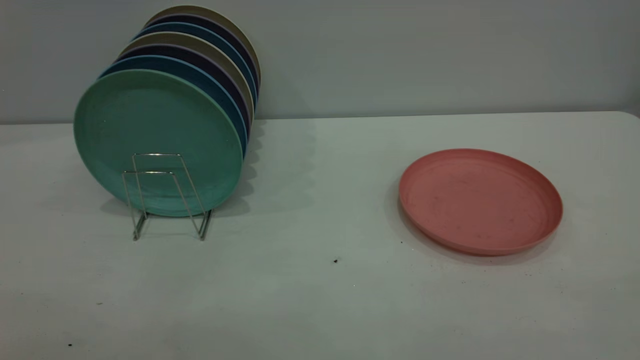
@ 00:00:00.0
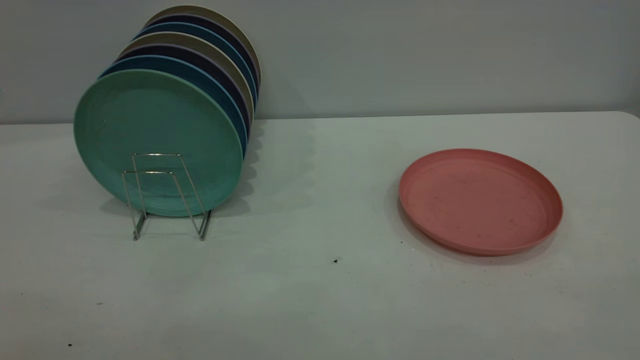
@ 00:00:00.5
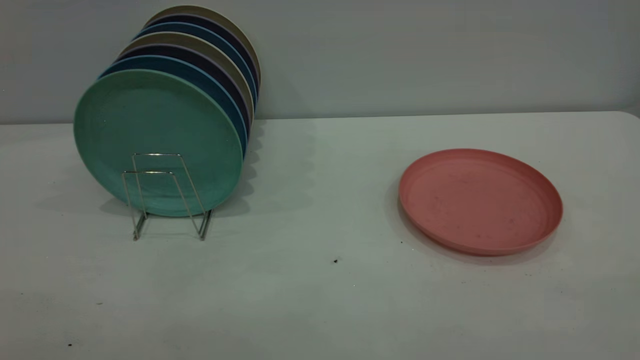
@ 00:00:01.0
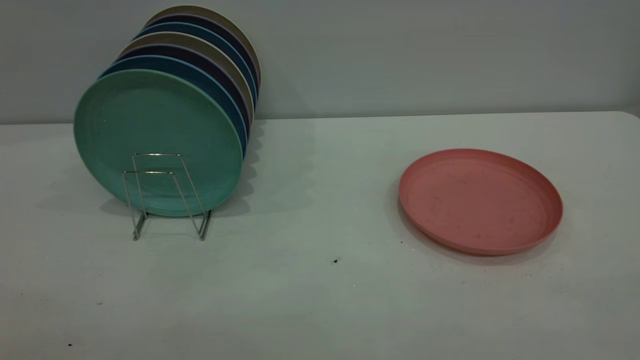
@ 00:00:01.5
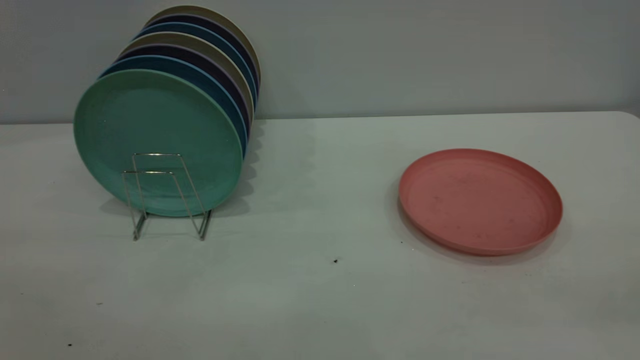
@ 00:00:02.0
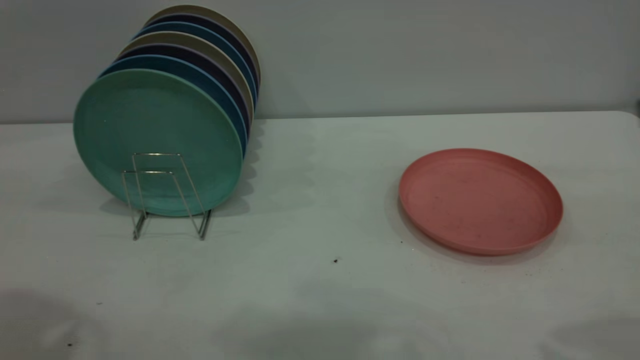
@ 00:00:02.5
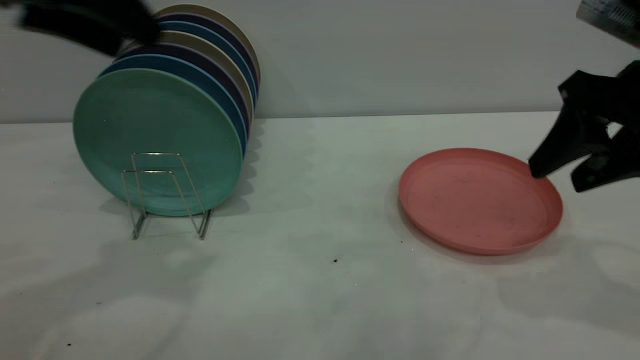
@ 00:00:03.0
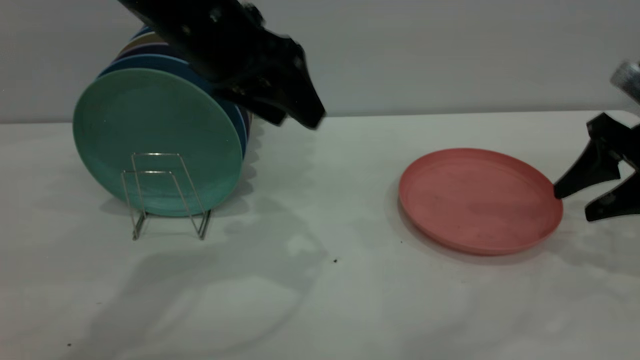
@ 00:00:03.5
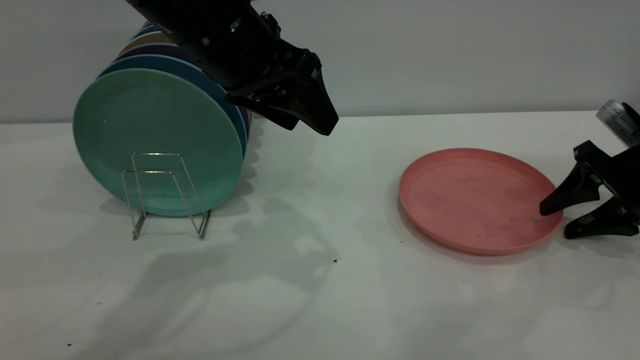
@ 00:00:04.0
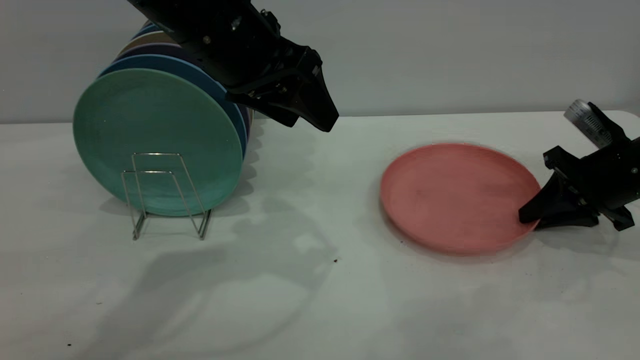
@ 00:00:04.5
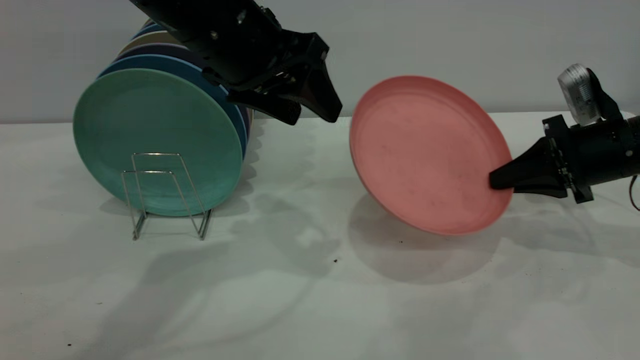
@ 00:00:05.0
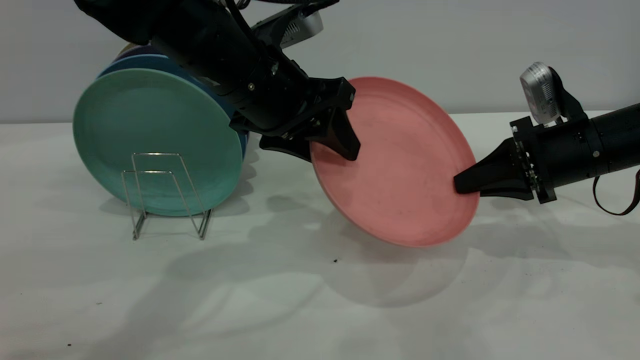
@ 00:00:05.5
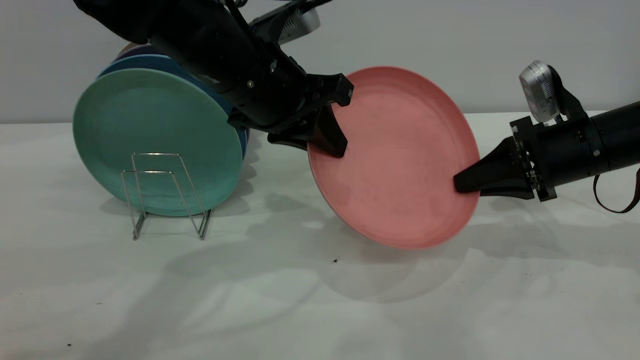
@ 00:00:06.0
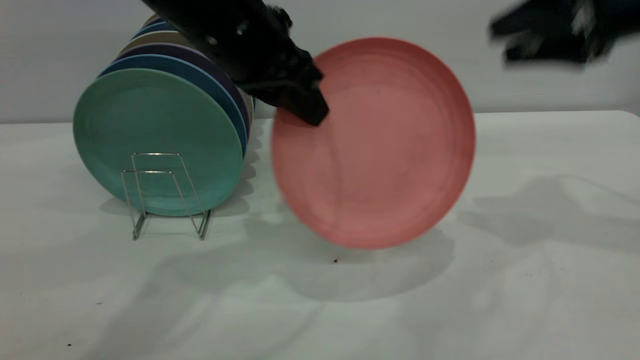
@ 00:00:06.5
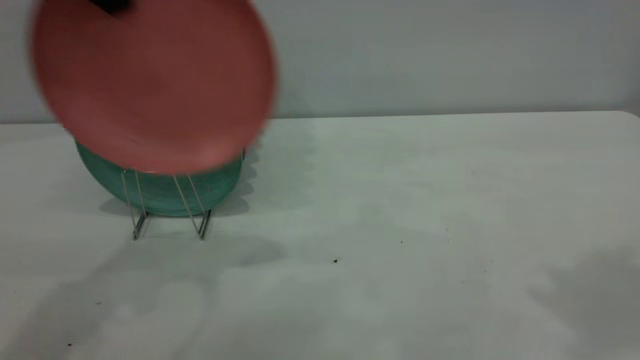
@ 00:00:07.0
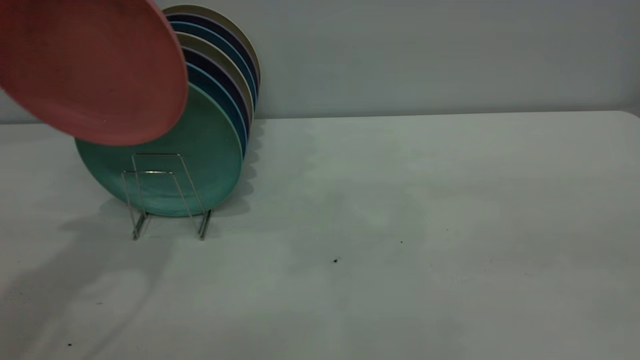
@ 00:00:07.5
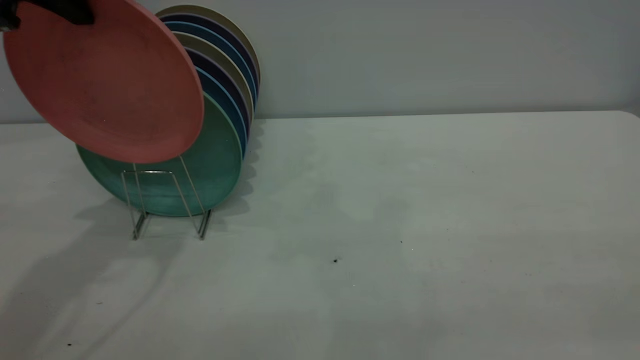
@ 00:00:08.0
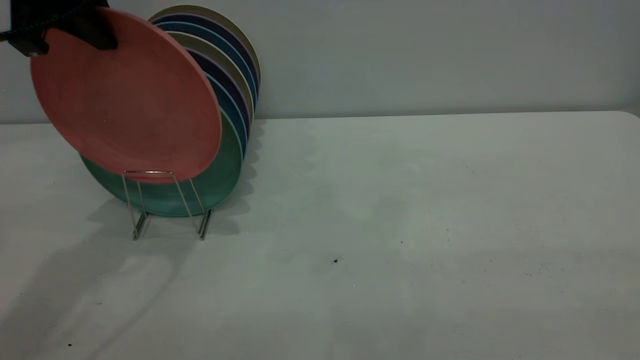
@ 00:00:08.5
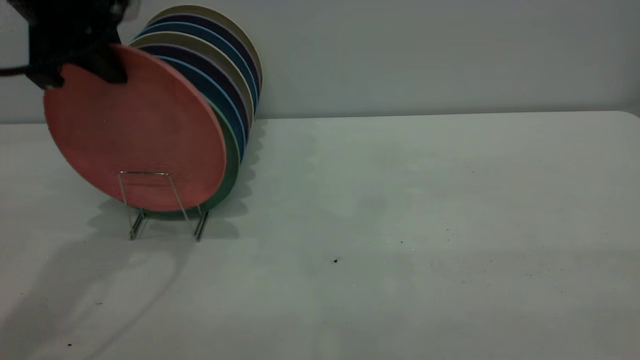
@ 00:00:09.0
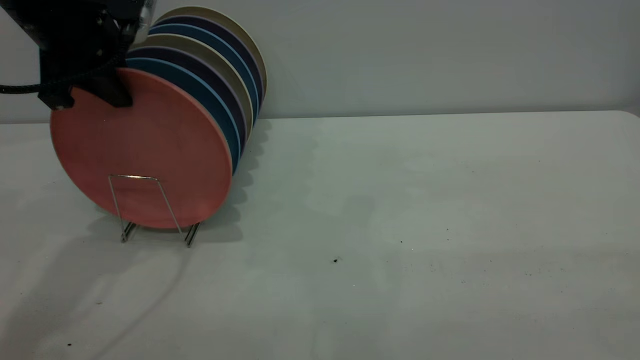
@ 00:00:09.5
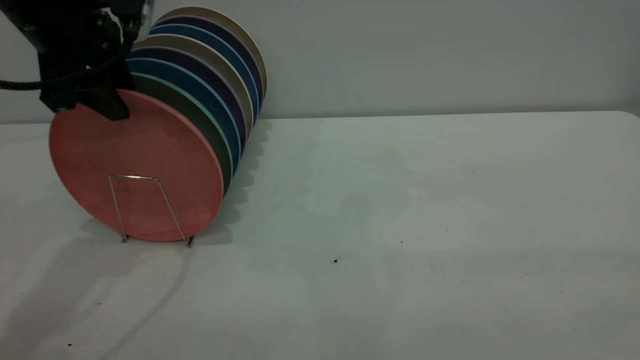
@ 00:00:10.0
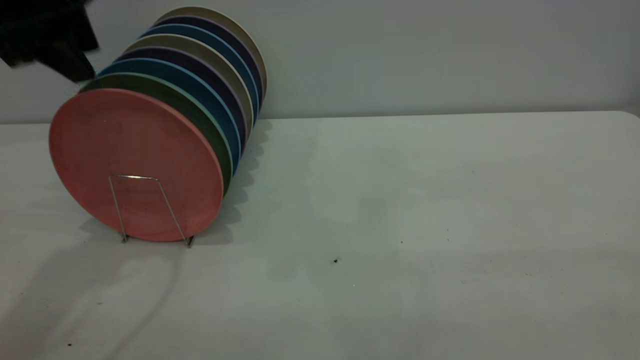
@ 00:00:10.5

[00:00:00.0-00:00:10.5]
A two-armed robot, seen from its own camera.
Task of the whole recording: the right gripper grasp the pink plate, the right gripper pass the pink plate to the left gripper, and the left gripper place the pink plate on the plate rack.
Step, 00:00:00.0 to 00:00:04.5: Pick up the plate with the right gripper.
Step, 00:00:05.0 to 00:00:06.0: Pass the plate from the right gripper to the left gripper.
Step, 00:00:06.5 to 00:00:10.5: Place the plate on the shelf.
00:00:02.0 to 00:00:04.0: The left gripper moves forward, to the right and downward, approximately 40 cm. The right gripper is displaced forward and downward by some 40 cm.
00:00:04.0 to 00:00:06.5: The left gripper closes up; the right gripper goes some 20 cm upward, and closes, then reopens.
00:00:06.5 to 00:00:08.5: The right gripper goes roughly 35 cm backward, and closes. The left gripper moves to the left, approximately 15 cm.
00:00:08.5 to 00:00:10.5: The left gripper opens up.

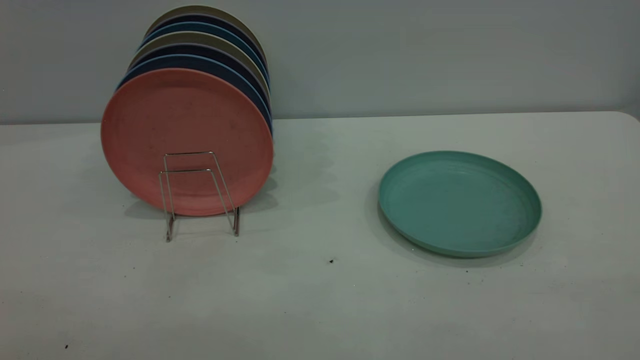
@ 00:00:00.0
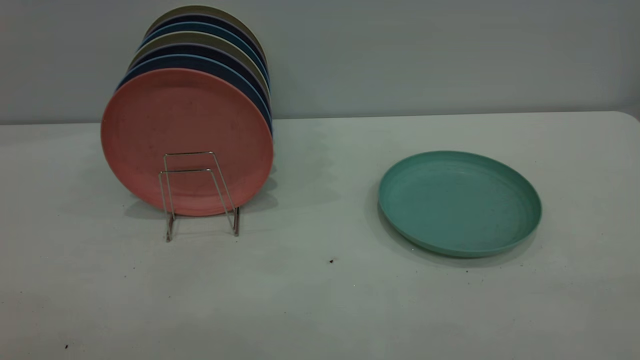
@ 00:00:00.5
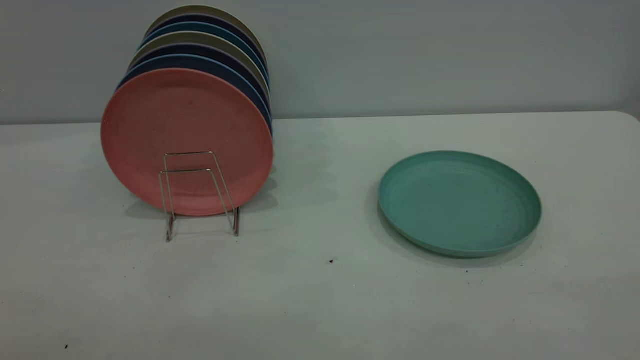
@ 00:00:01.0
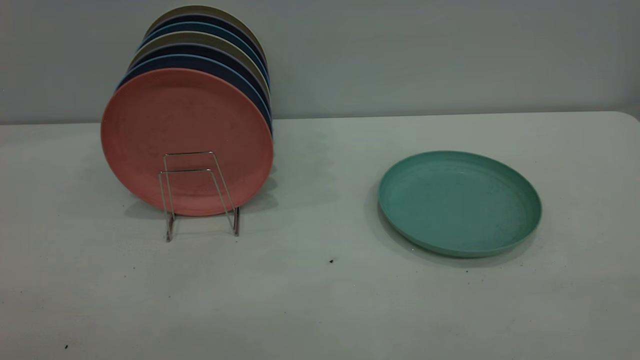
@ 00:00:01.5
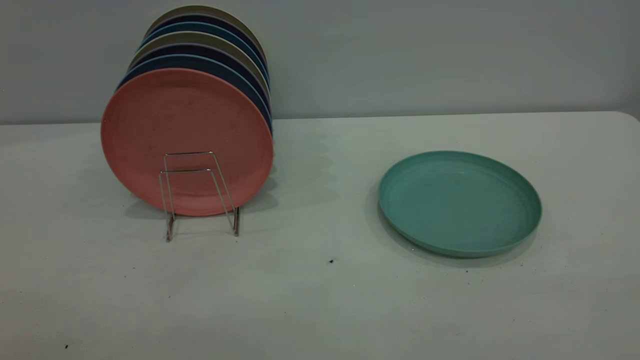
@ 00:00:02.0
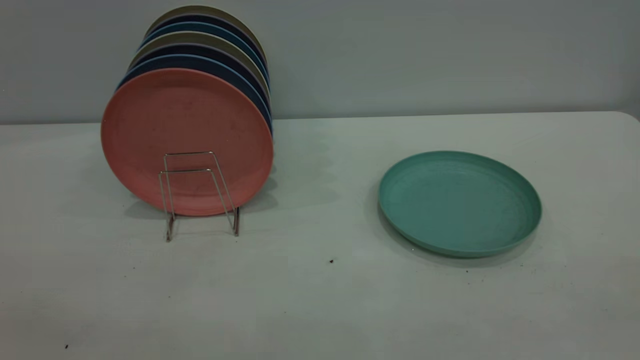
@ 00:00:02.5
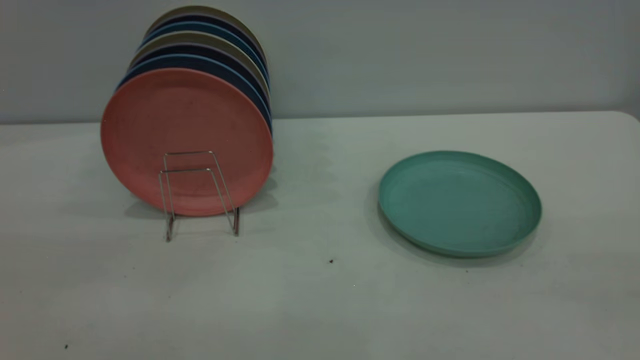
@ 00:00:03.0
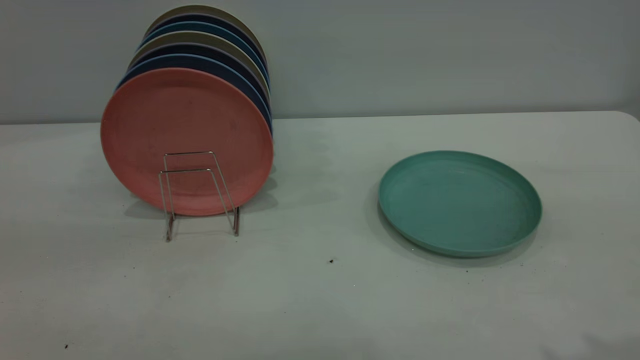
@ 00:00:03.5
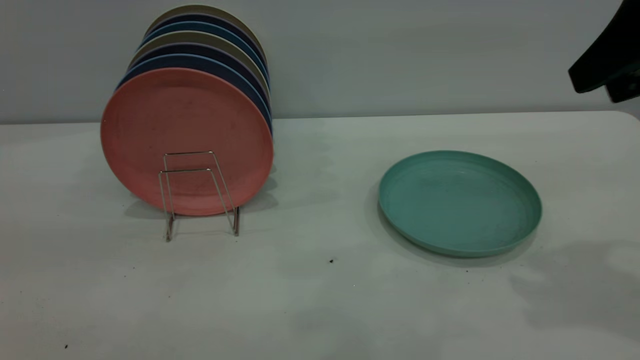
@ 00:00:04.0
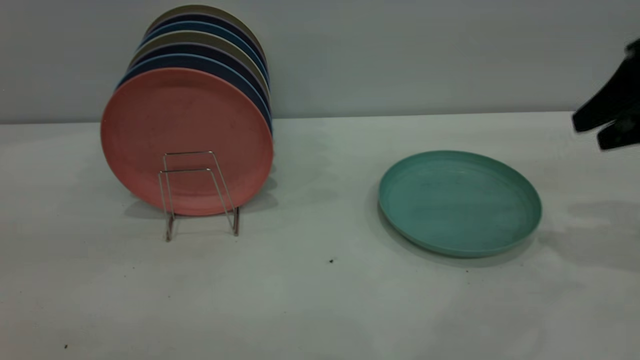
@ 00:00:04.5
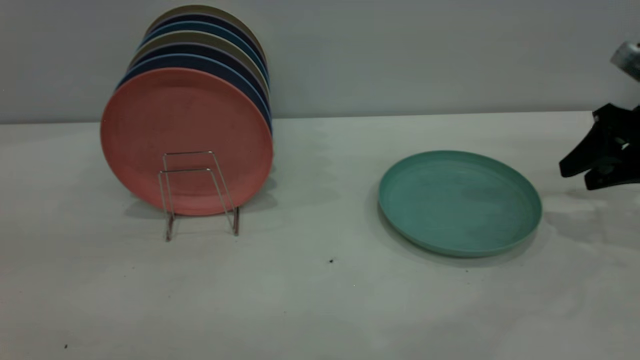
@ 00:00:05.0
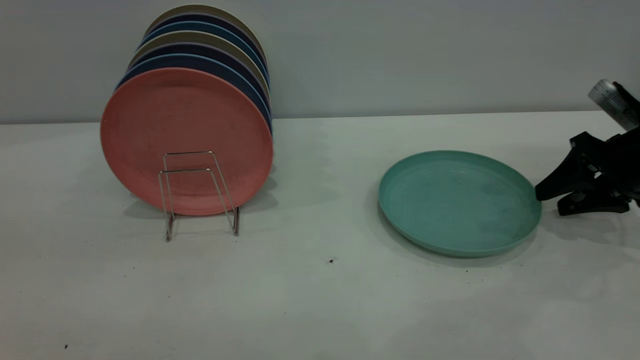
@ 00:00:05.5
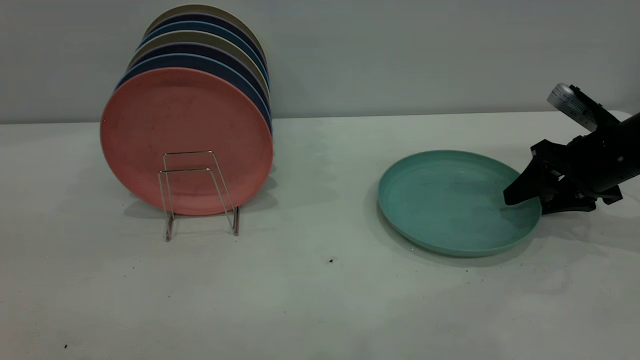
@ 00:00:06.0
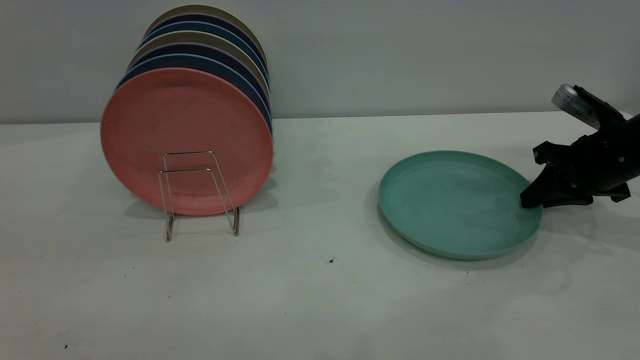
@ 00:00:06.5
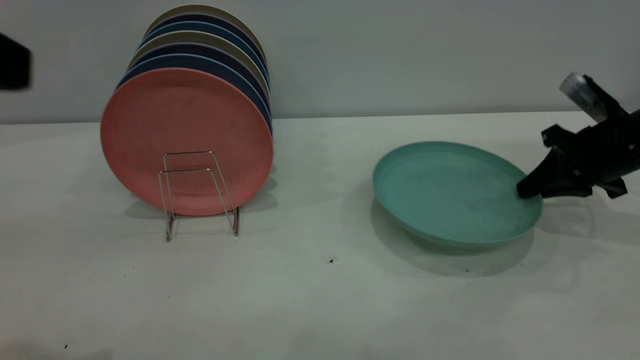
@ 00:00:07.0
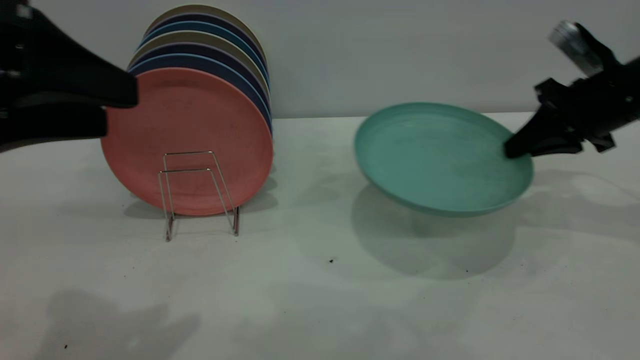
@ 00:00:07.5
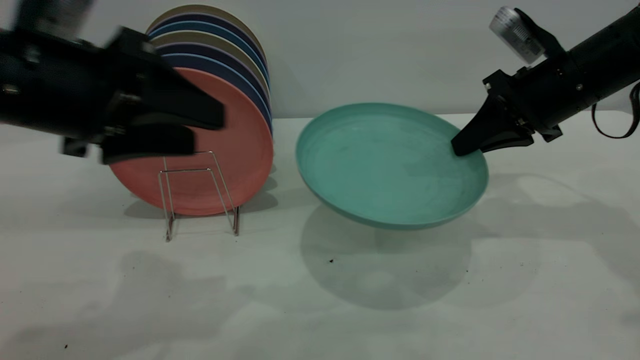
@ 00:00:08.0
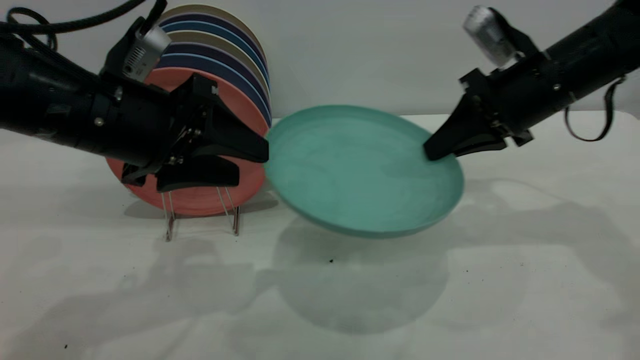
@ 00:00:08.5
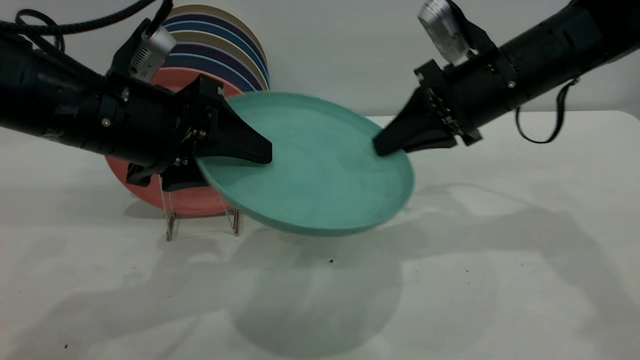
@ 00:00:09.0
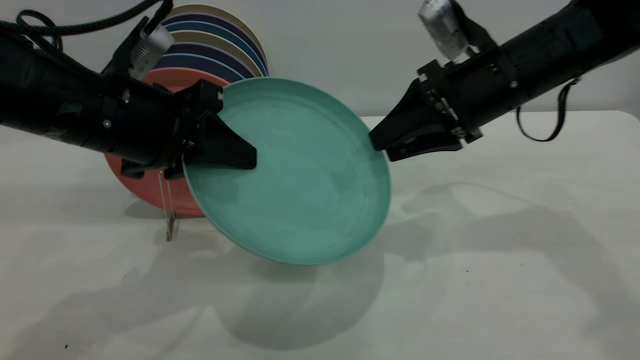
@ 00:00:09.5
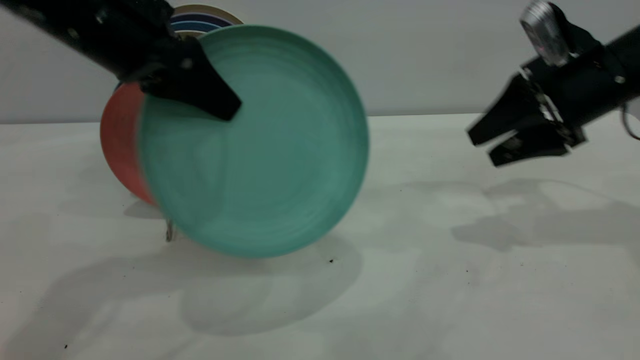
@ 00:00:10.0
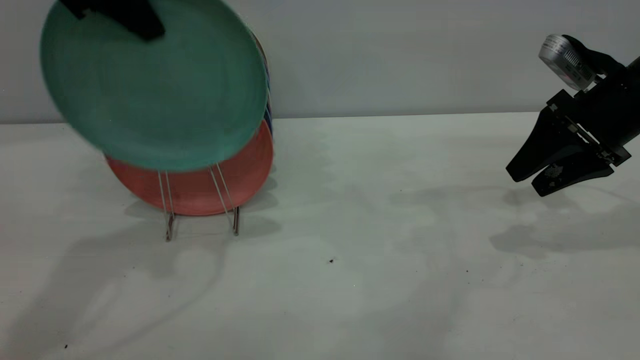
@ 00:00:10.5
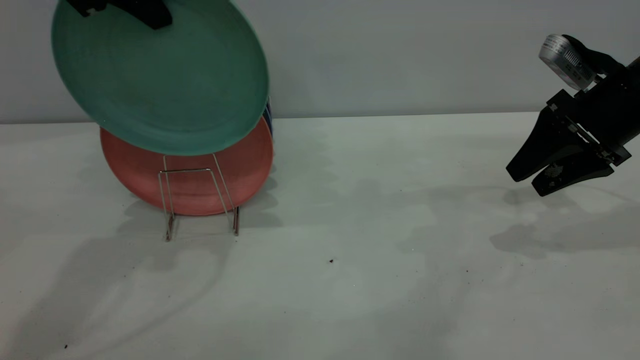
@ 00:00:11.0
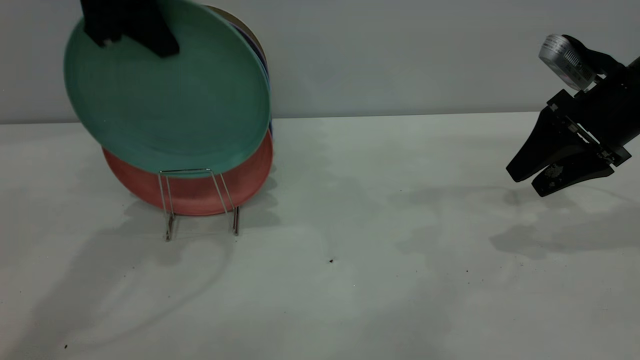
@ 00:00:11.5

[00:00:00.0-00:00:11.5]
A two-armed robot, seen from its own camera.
Task of the whole recording: the right gripper grasp the green plate, the right gripper pass the green plate to the left gripper, and the left gripper place the green plate on the plate rack.
Step, 00:00:00.0 to 00:00:07.0: Pick up the plate with the right gripper.
Step, 00:00:07.5 to 00:00:10.0: Pass the plate from the right gripper to the left gripper.
00:00:00.0 to 00:00:02.0: Neither gripper changes place.
00:00:02.0 to 00:00:04.0: The right gripper goes approximately 30 cm forward, and opens.
00:00:04.0 to 00:00:06.0: The right gripper shifts about 25 cm downward and forward.
00:00:06.0 to 00:00:07.5: The right gripper shifts roughly 5 cm upward, and closes up, while the left gripper travels forward and downward by some 10 cm.
00:00:07.5 to 00:00:09.5: The right gripper shifts approximately 10 cm to the left, and opens up. Meanwhile the left gripper travels forward, downward and to the right by approximately 15 cm, and closes its fingers.
00:00:09.5 to 00:00:11.5: The right gripper shifts some 10 cm to the right. The left gripper travels upward and forward by about 15 cm.
